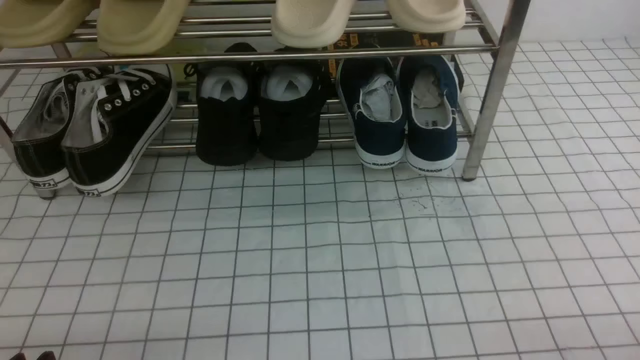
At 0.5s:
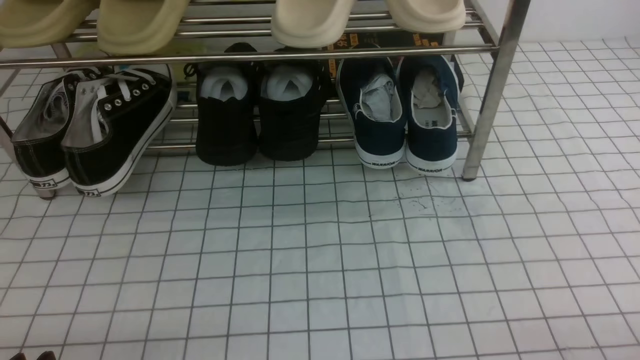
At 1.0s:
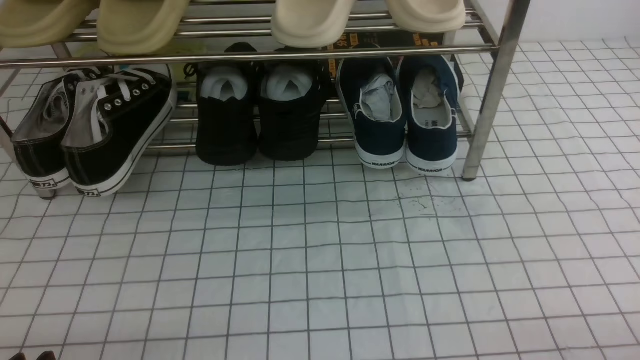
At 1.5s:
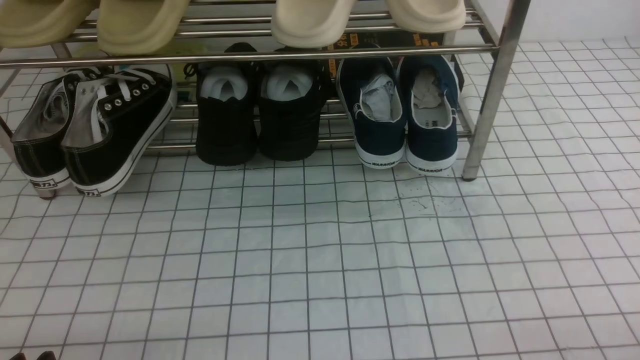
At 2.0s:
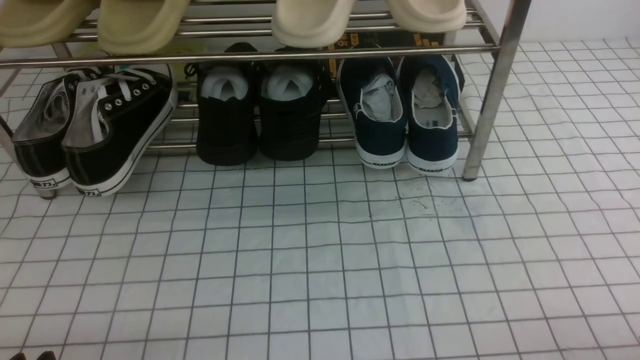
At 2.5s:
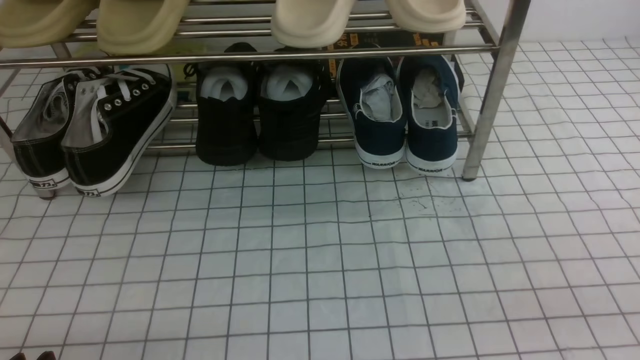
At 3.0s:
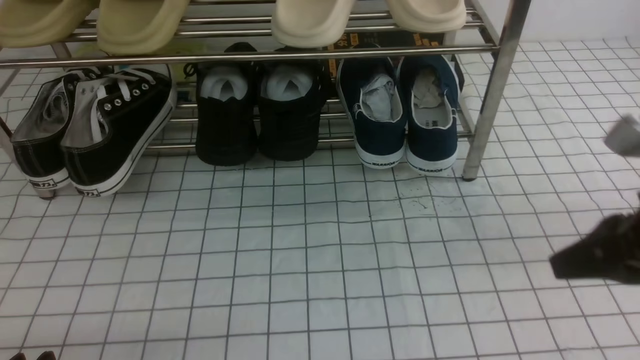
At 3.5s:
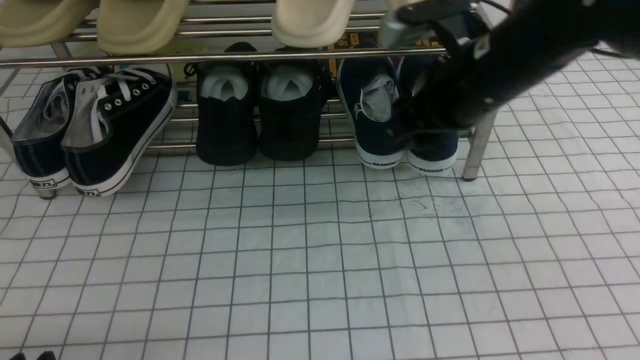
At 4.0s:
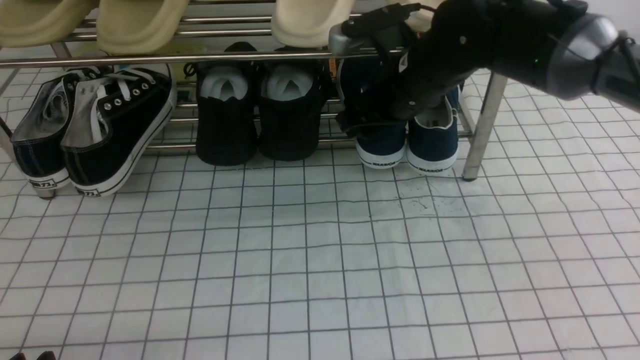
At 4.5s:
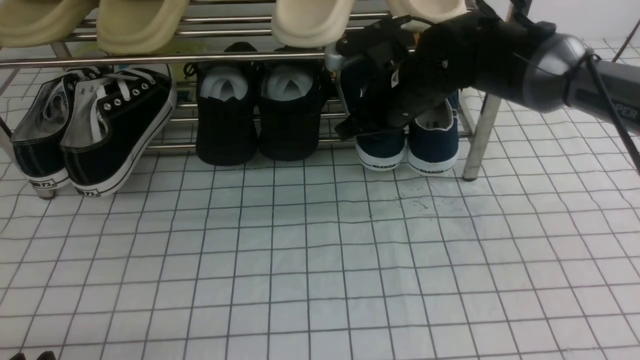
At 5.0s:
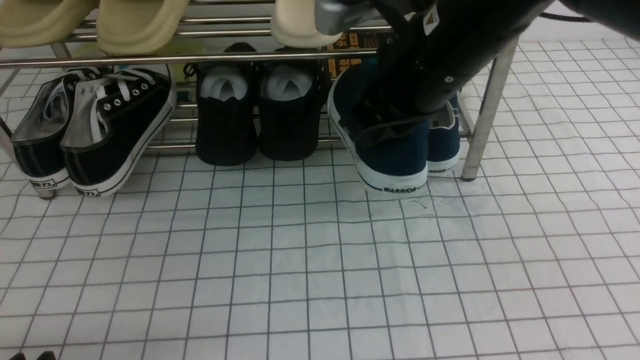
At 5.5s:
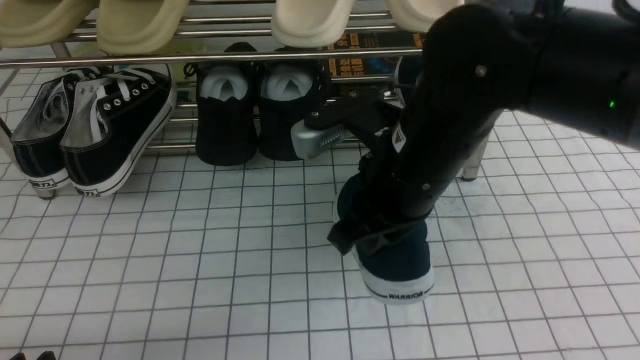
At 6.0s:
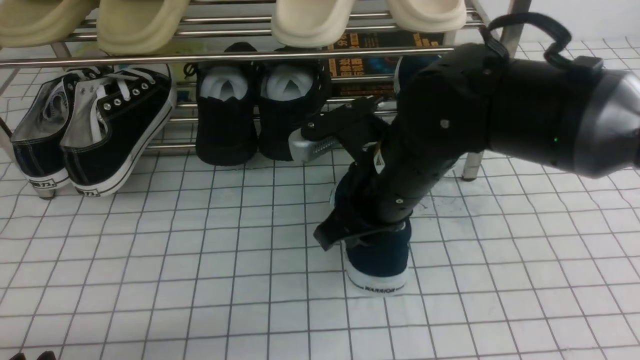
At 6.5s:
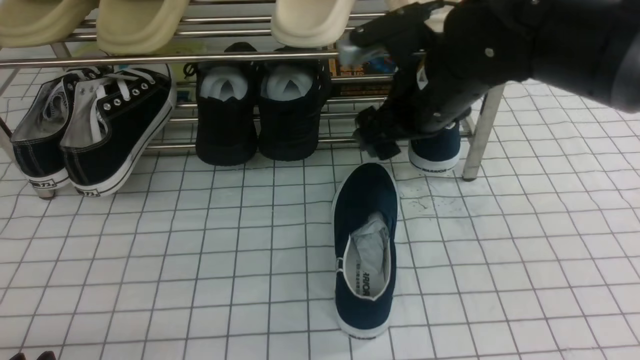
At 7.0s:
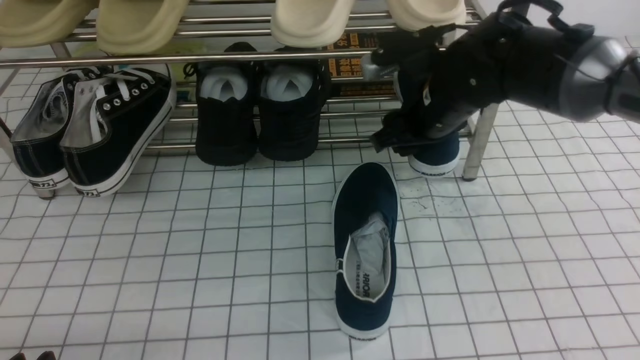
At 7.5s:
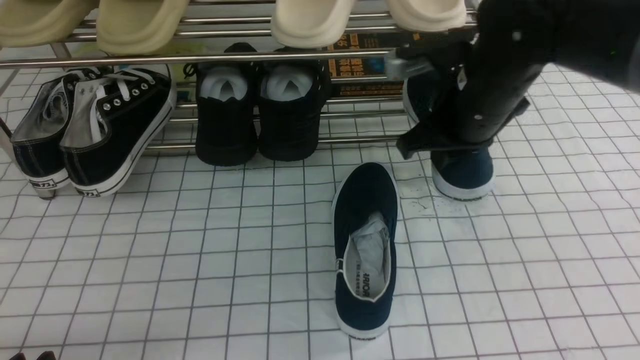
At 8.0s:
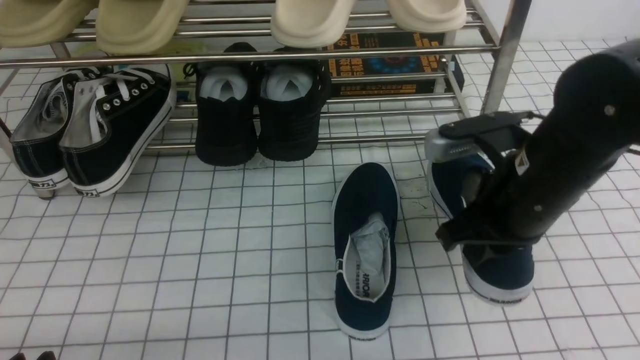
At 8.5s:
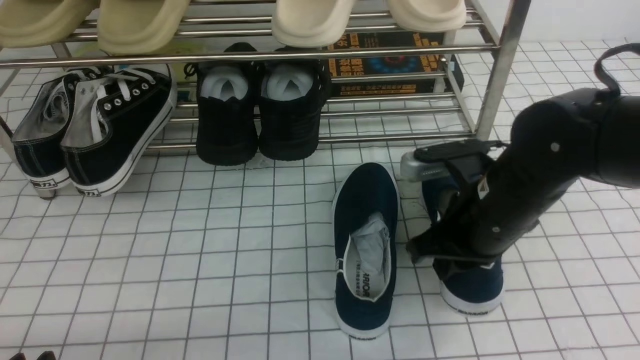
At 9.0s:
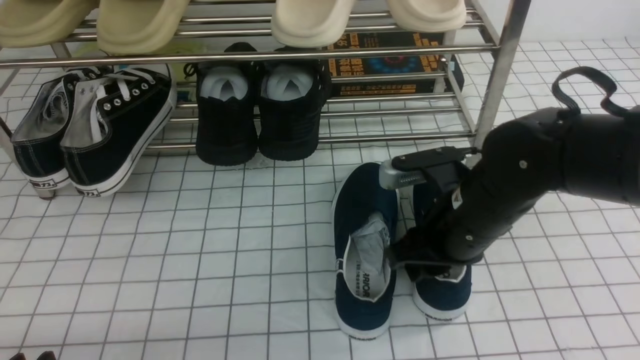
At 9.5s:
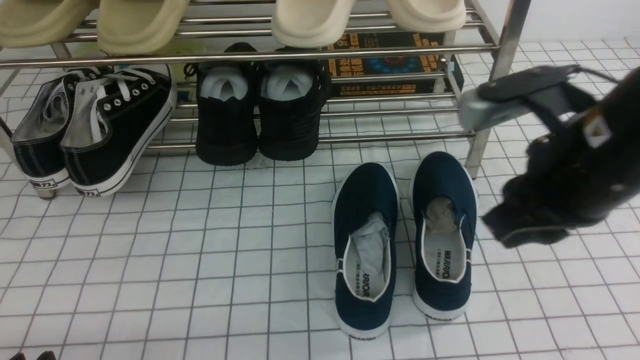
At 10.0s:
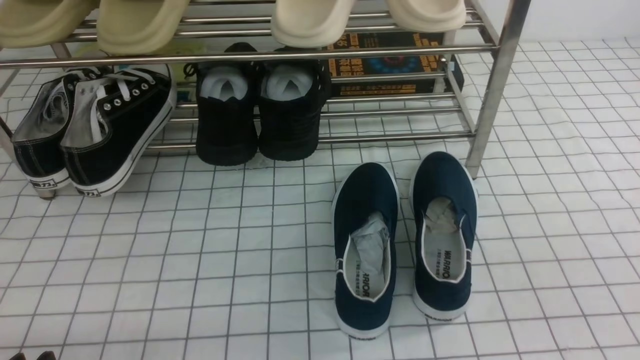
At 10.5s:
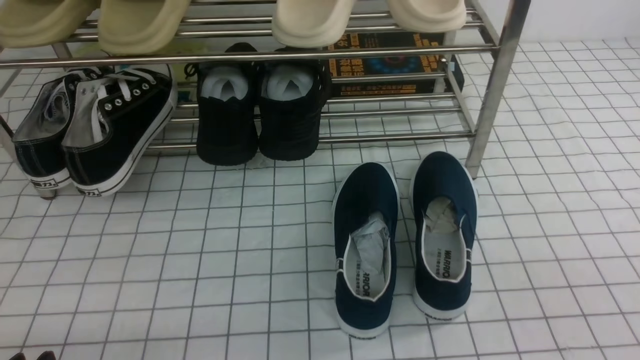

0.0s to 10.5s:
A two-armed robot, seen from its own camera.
Step, 0.0s to 4.0s: use the right arm to clamp a shoe on the right side of the shoe rack.
Step, 5.0s to 6.0s: use the right arm to take out the clamped shoe from the shoe rack and put it down.
Step, 6.5s to 7.0s: use the right arm to clamp a shoe on the right side of the shoe rack.
Step, 7.5s to 9.0s: use the right arm to take out the clamped shoe from the shoe rack and put it down.
2.0s to 4.0s: The right gripper is displaced forward and to the left by roughly 40 cm, and opens its fingers.
4.0s to 6.5s: The right gripper heads backward, covering approximately 5 cm, and closes, then opens again.
6.5s to 8.5s: The right gripper travels downward and backward by roughly 10 cm, and closes its fingers.
8.5s to 10.5s: The right gripper is displaced backward and to the right by about 25 cm, and opens, then closes once more.

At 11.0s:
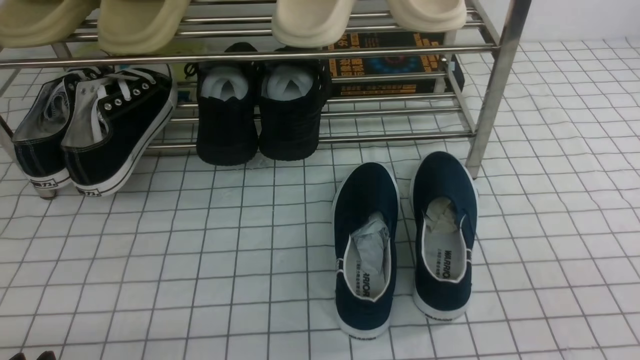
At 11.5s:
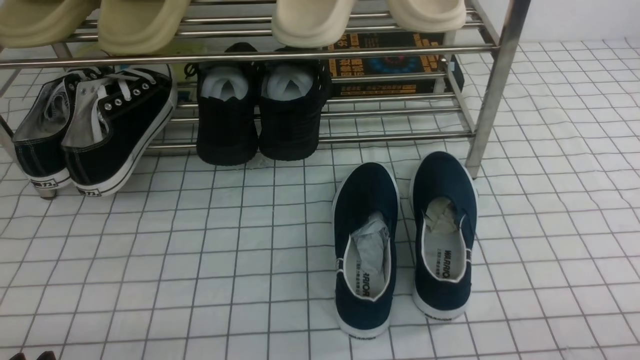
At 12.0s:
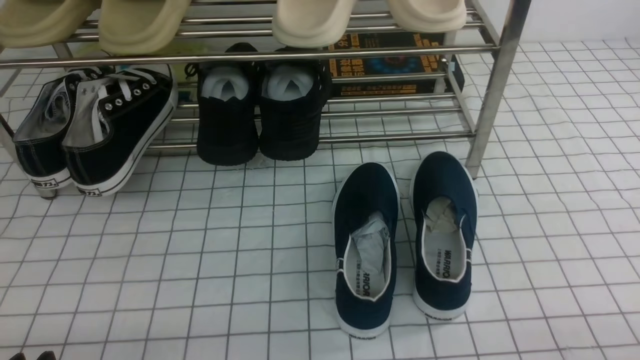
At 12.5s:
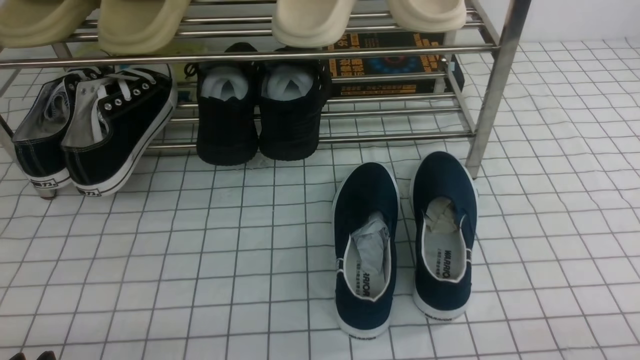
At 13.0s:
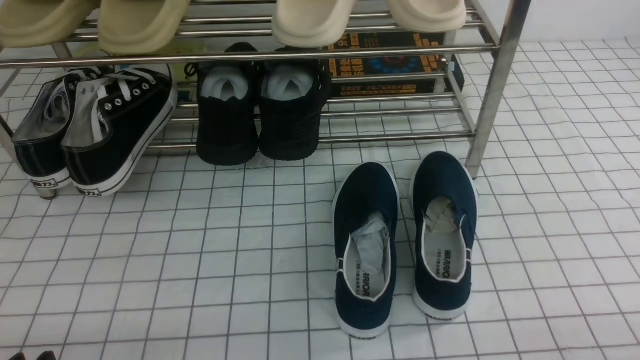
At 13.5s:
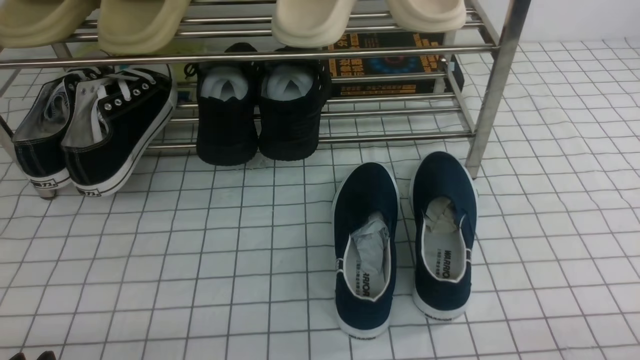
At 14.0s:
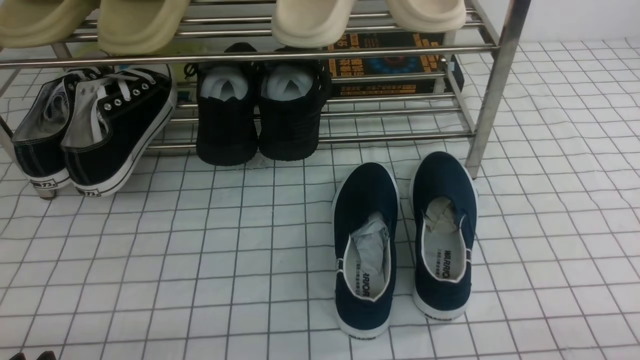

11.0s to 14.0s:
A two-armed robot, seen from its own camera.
12.5s to 14.0s: Both grippers stay about where they are.

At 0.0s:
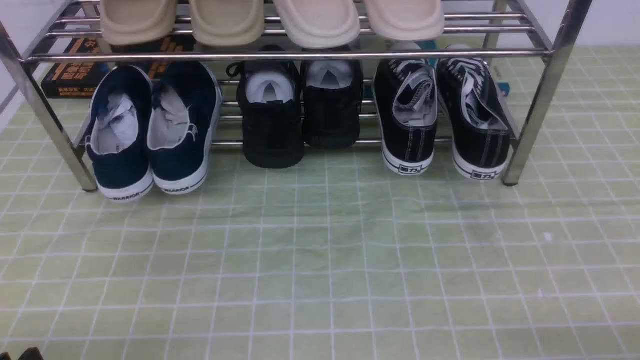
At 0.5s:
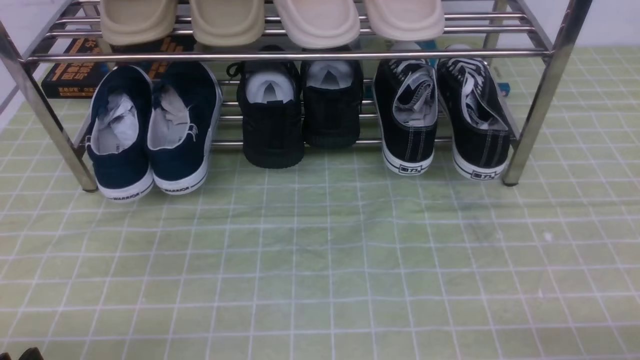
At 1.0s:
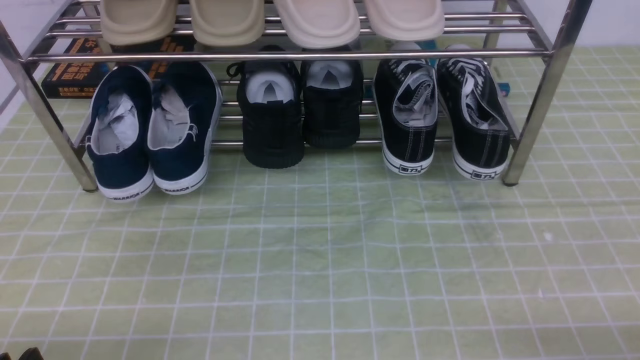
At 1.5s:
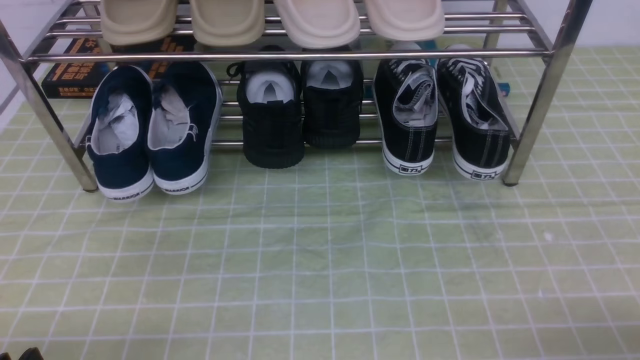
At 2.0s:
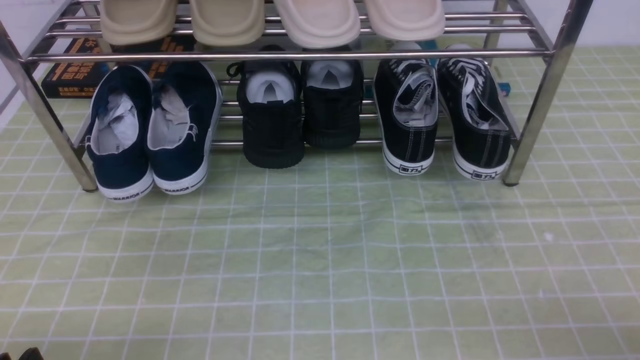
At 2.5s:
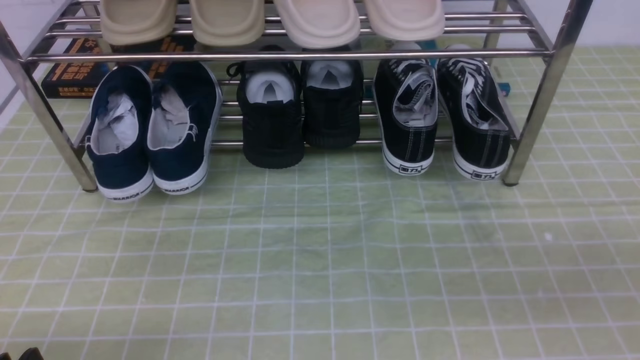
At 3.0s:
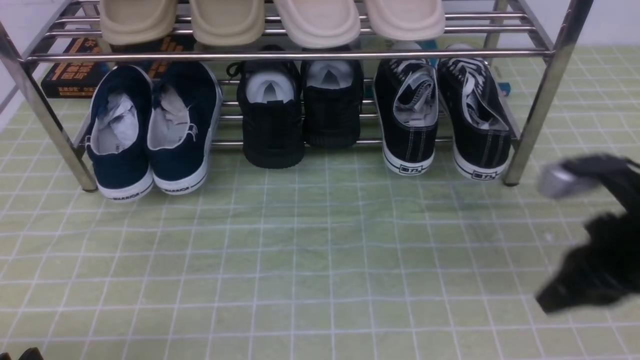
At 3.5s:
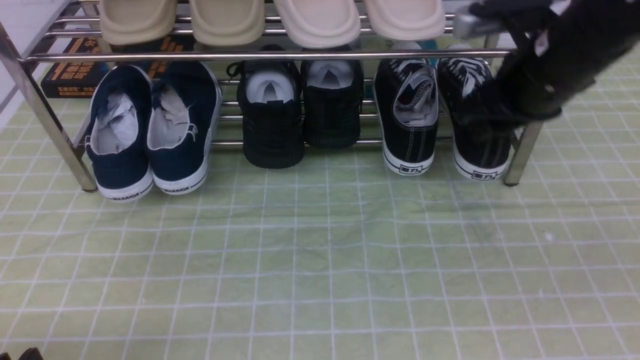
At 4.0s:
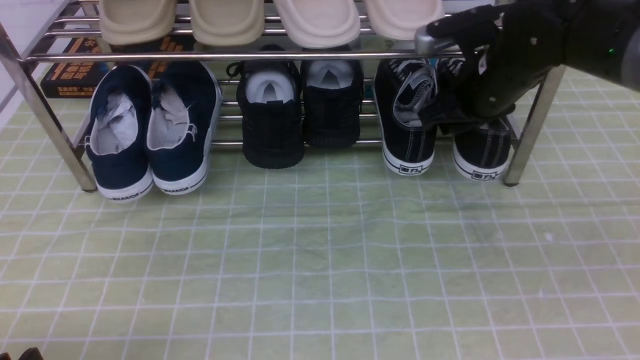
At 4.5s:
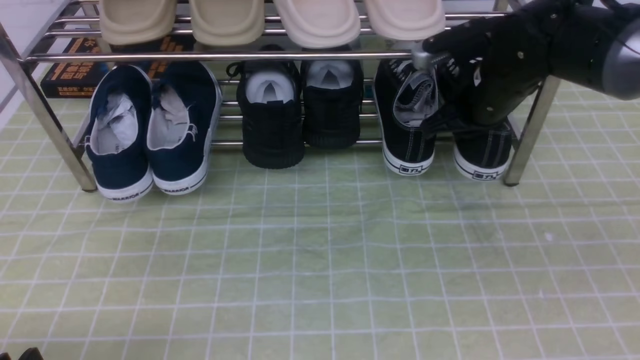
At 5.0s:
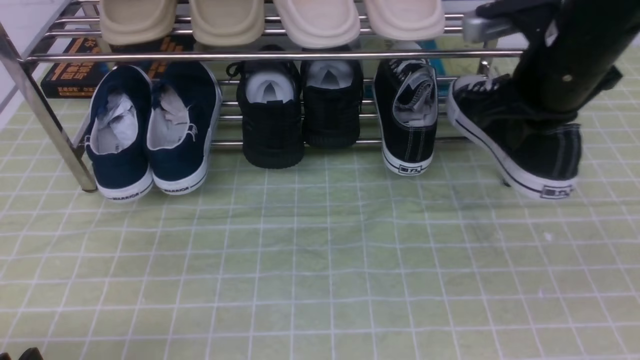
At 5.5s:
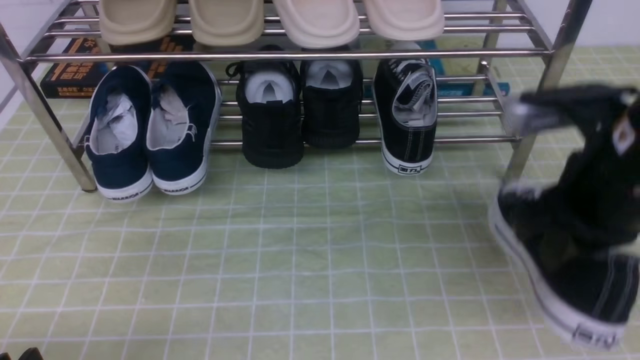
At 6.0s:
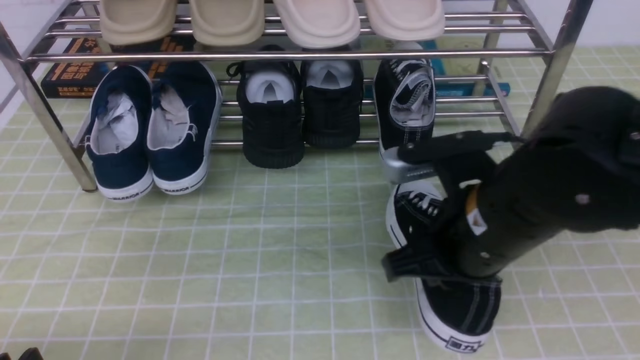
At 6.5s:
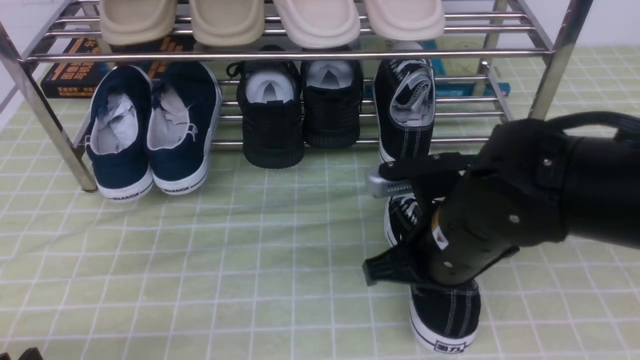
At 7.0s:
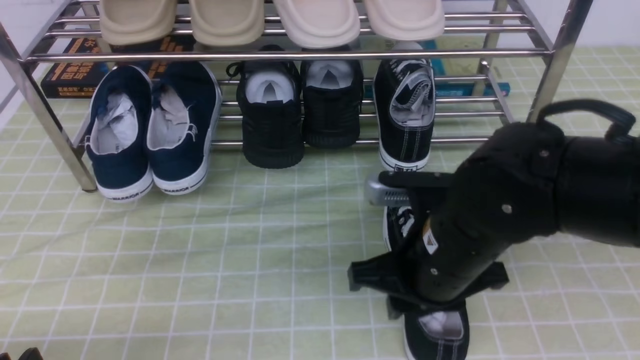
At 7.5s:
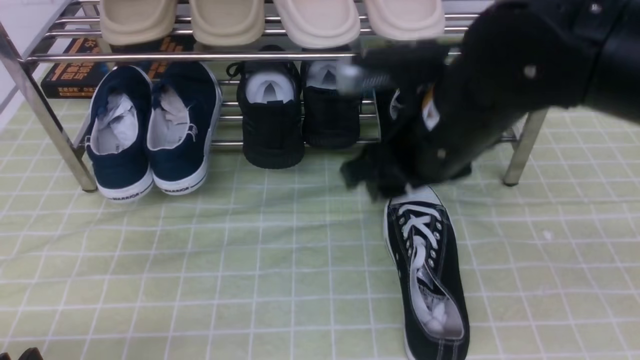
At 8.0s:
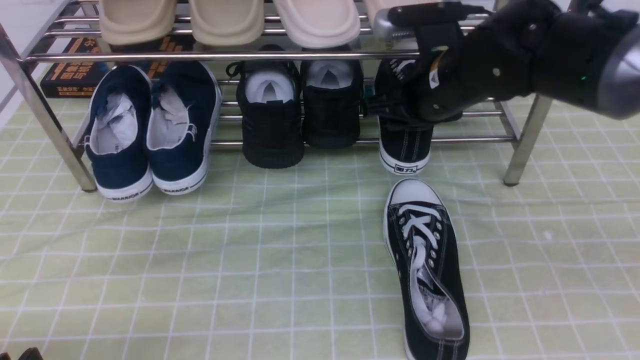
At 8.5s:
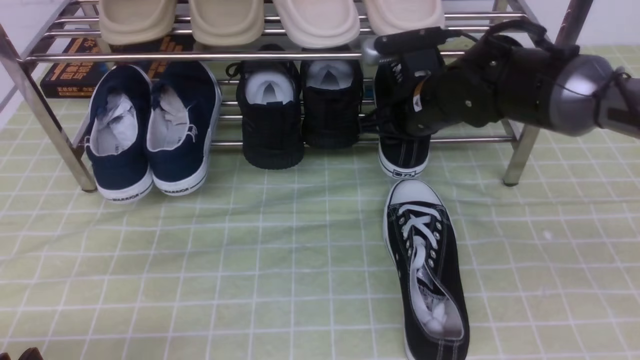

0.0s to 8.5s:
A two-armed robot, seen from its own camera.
Step, 0.0s to 4.5s: use the right arm to clamp a shoe on the right side of the shoe rack.
Step, 5.0s to 6.5s: use the right arm to take out the clamped shoe from the shoe rack and put it down.
2.0s to 4.0s: The right gripper is displaced forward by some 35 cm, and closes, then opens again.
4.0s to 6.5s: The right gripper moves backward and to the left, approximately 20 cm, and closes.
6.5s to 8.5s: The right gripper shifts approximately 15 cm forward, and opens, then closes again.
